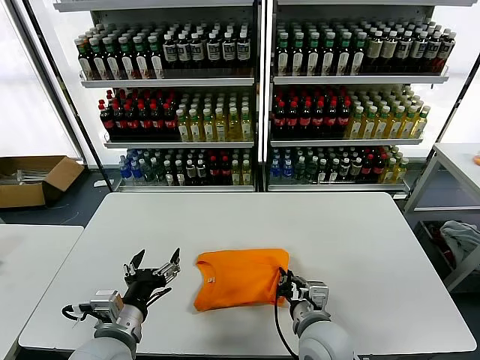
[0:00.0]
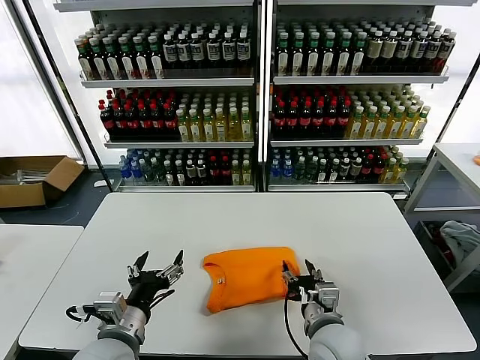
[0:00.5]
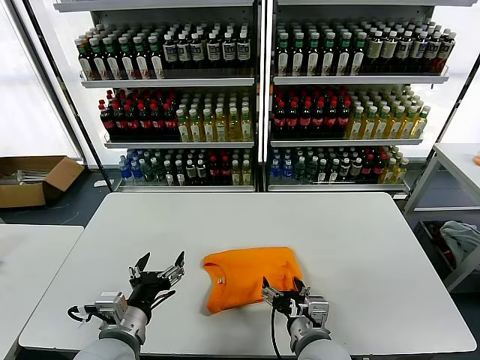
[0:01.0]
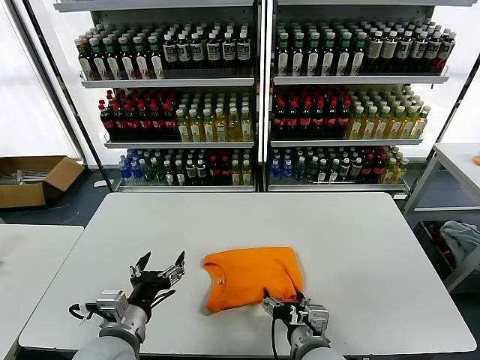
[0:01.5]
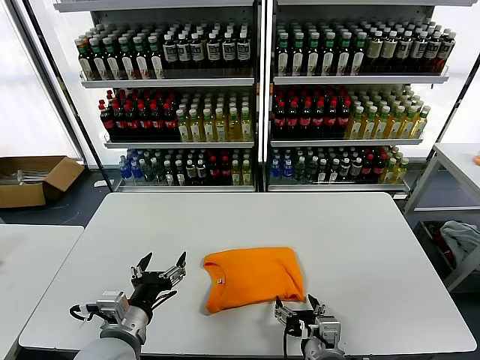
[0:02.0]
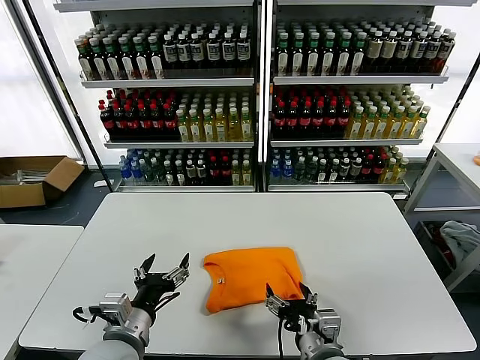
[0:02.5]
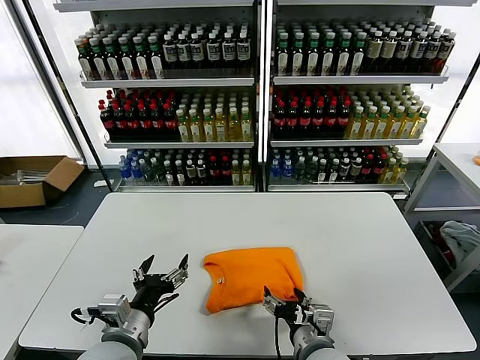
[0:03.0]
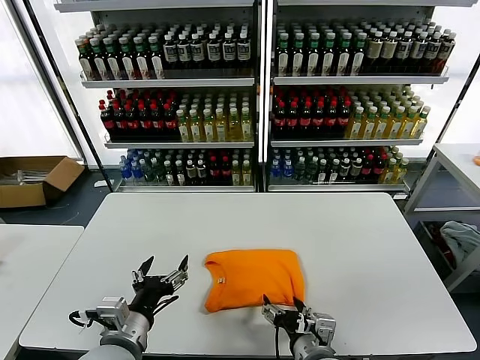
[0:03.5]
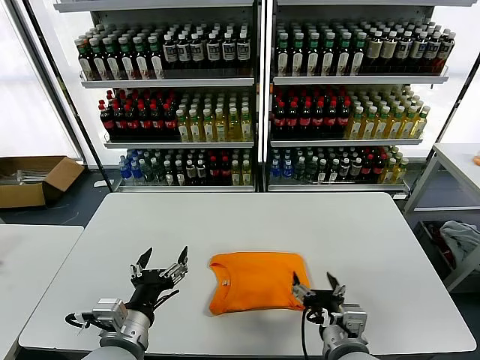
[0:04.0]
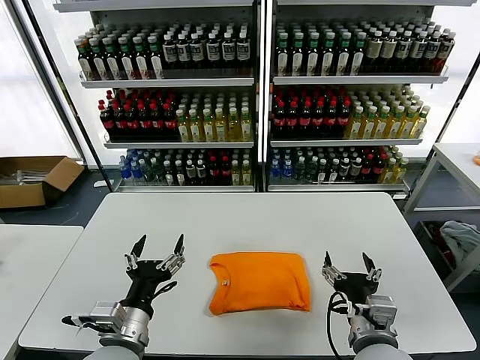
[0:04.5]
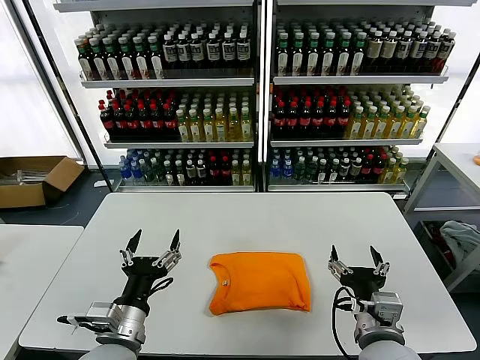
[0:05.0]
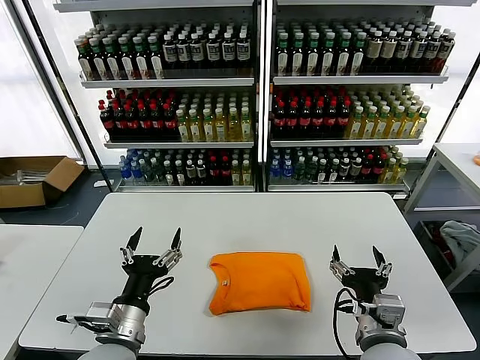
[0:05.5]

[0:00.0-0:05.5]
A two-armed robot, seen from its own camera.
Task of the whole recording: fold and organize the clothes.
Step, 0:00.0 to 0:03.5: Drag the clothes to the center of the table.
0:00.0 to 0:02.0: The right gripper travels backward by about 5 cm, and opens its fingers.
0:02.0 to 0:03.5: The grippers move only a little.
0:03.5 to 0:05.5: The right gripper shifts approximately 10 cm to the right and upward.
